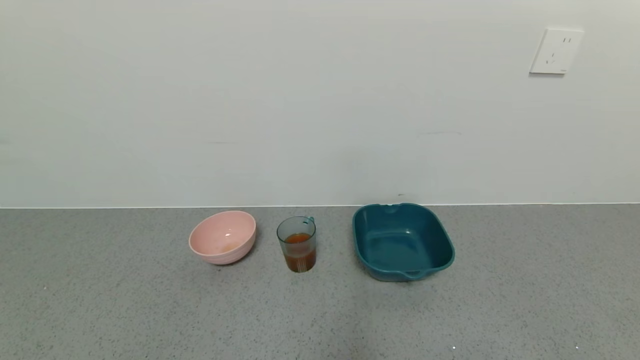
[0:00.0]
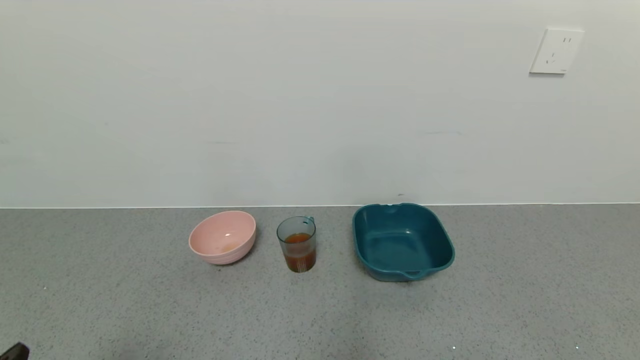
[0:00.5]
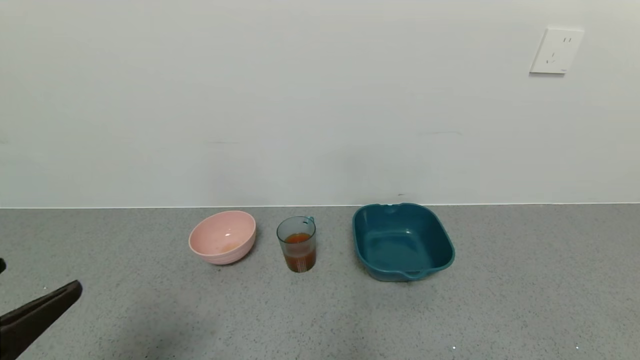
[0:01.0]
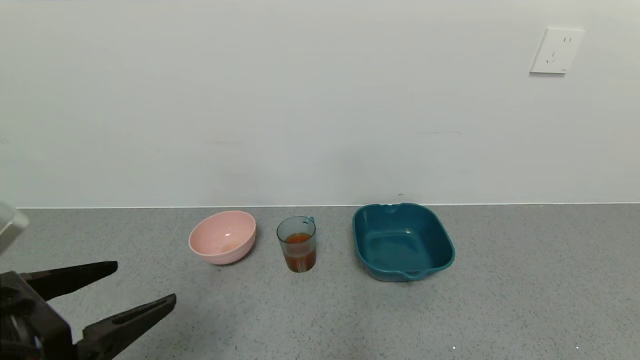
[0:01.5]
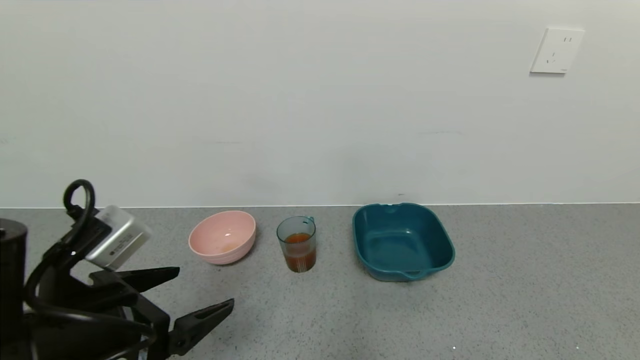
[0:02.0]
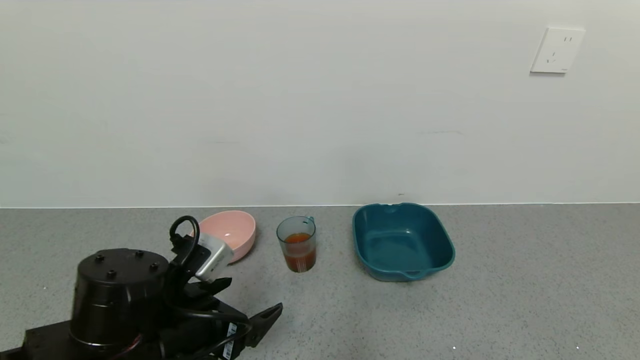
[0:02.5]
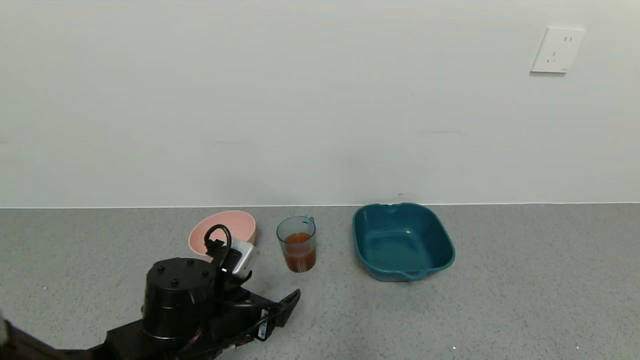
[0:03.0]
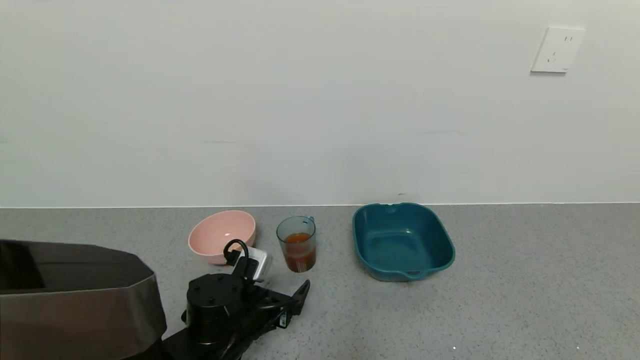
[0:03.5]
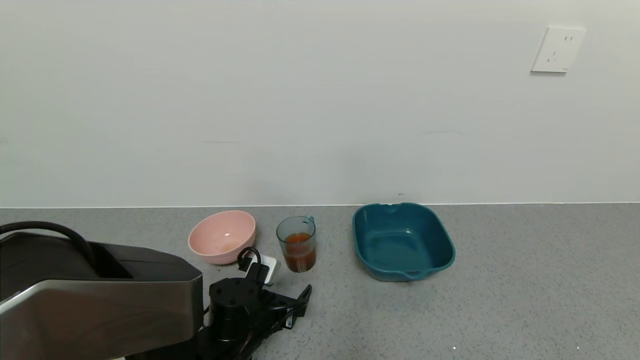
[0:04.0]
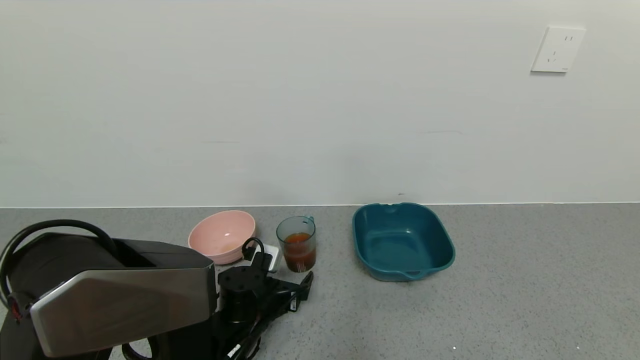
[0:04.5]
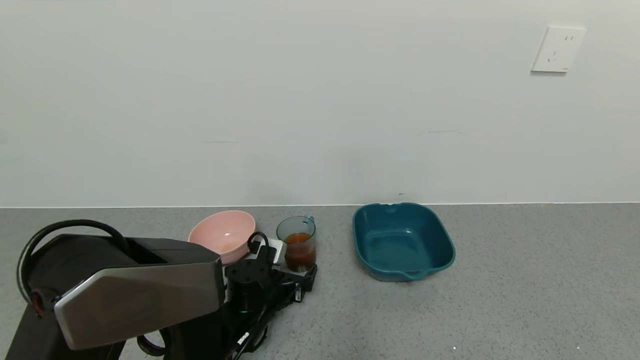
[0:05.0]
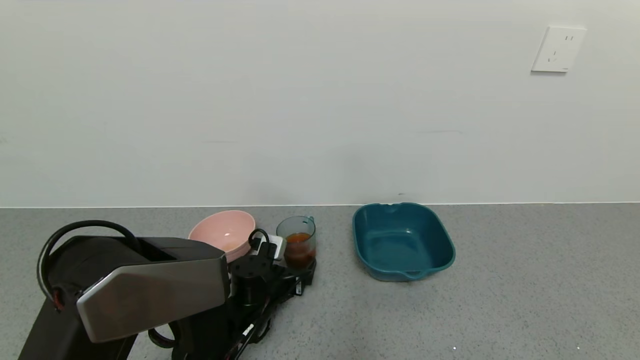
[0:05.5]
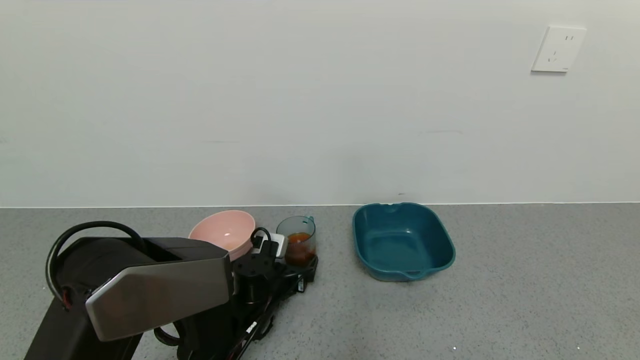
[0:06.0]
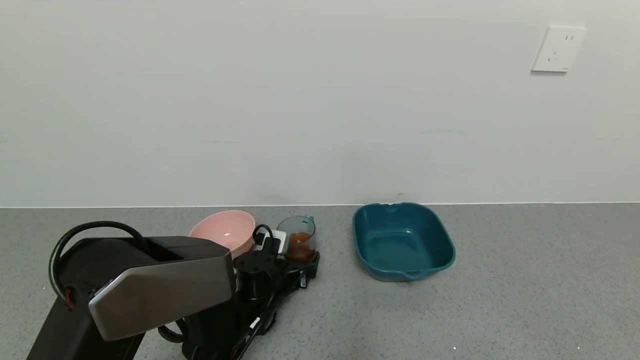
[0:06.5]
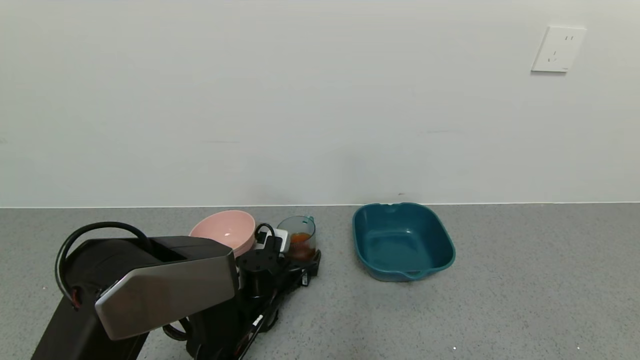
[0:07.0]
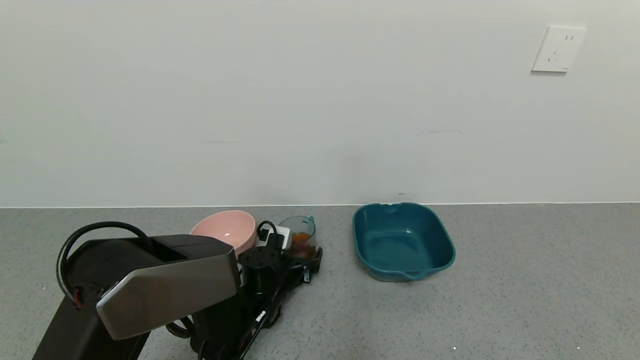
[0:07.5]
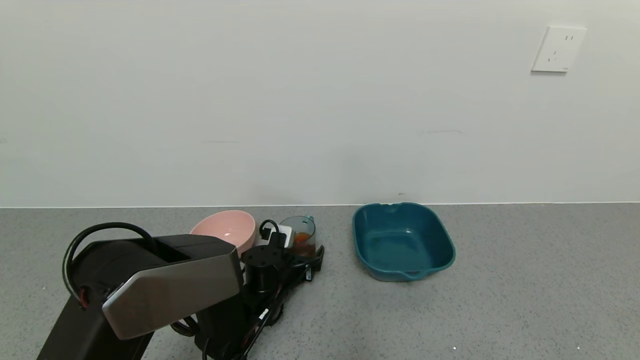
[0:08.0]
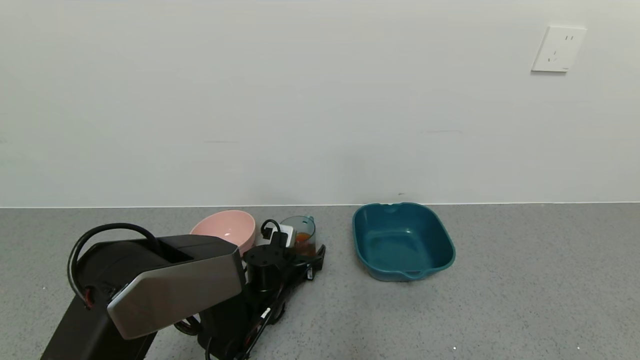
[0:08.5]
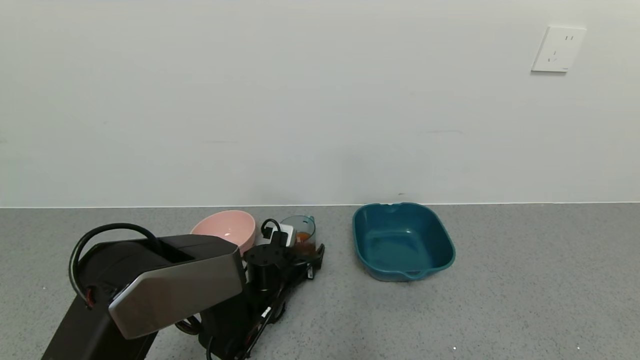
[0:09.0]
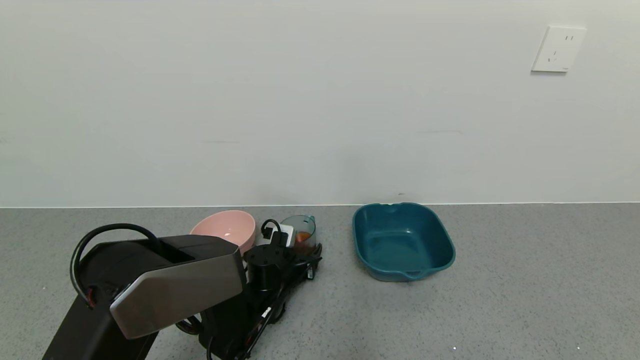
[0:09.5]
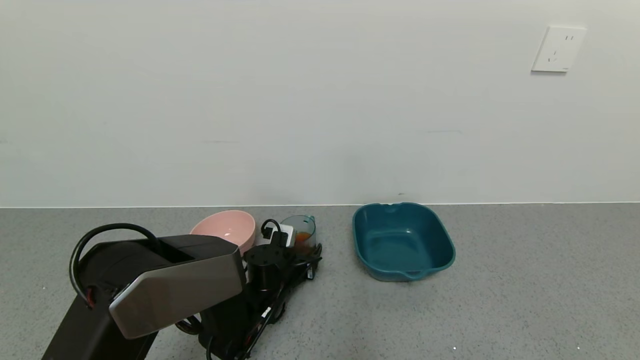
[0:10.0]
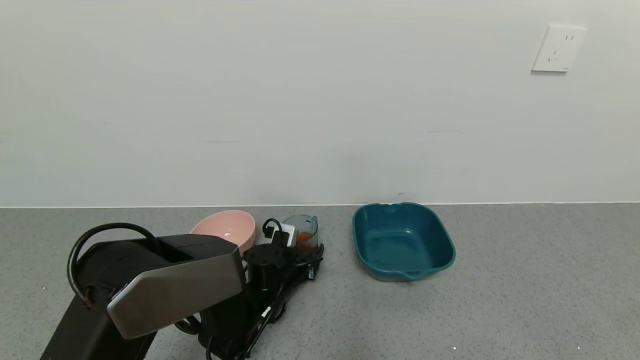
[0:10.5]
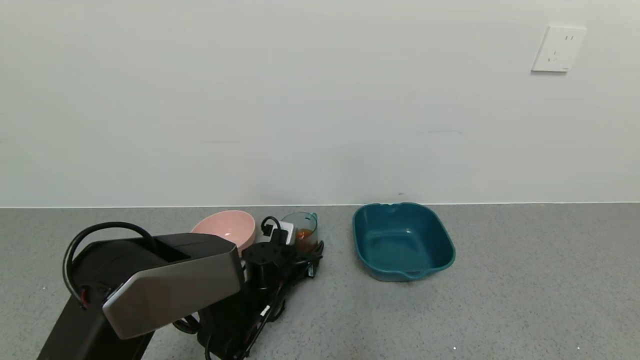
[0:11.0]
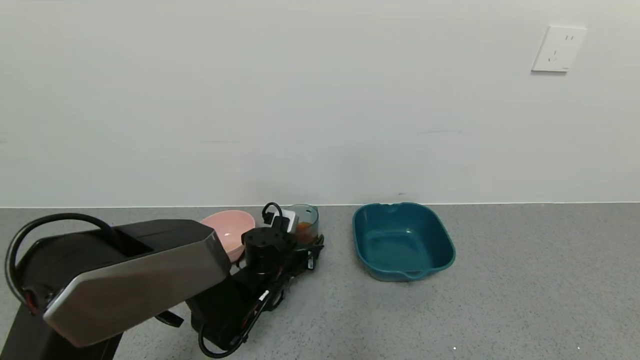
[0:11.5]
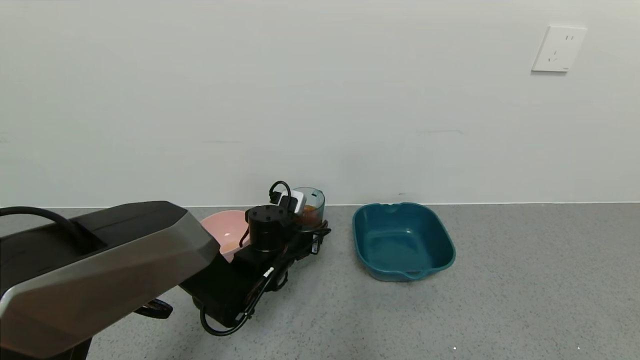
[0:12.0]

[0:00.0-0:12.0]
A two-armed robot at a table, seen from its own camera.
Task of the whole recording: use a gripper to pick up the cup and pour the liquid into a bowl or tray.
Step, 0:00.0 to 0:11.0: Grasp the glass of black tea with the left gripper.
0:00.0 to 0:02.0: The left gripper travels forward and to the right by approximately 20 cm.
0:02.0 to 0:04.0: The left gripper shifts roughly 25 cm downward, forward and to the right.
0:04.0 to 0:06.0: The left gripper travels forward by about 5 cm.
0:06.0 to 0:08.0: The grippers make only small movements.
0:08.0 to 0:10.0: The left gripper closes.
0:10.0 to 0:12.0: The left gripper heads upward, covering some 10 cm.

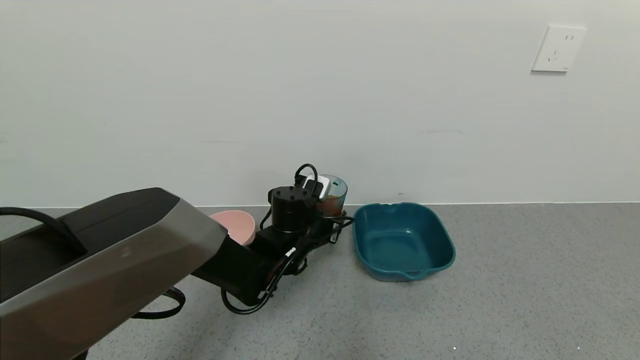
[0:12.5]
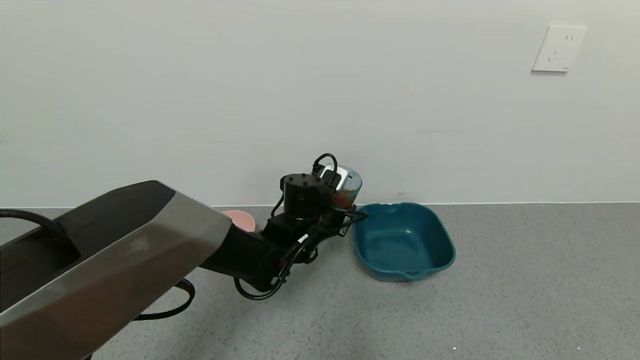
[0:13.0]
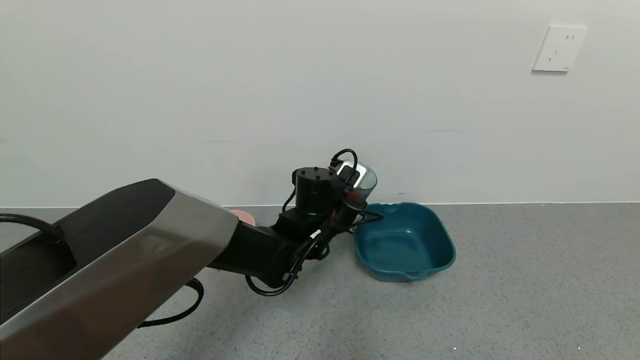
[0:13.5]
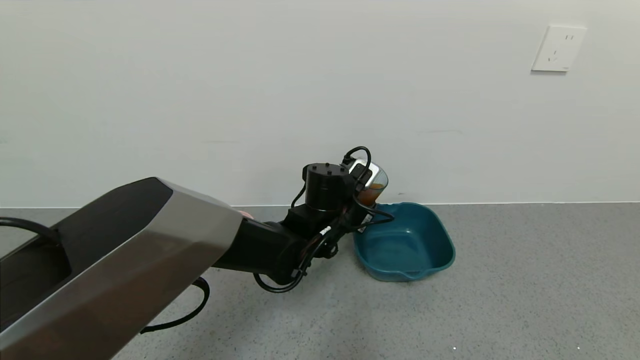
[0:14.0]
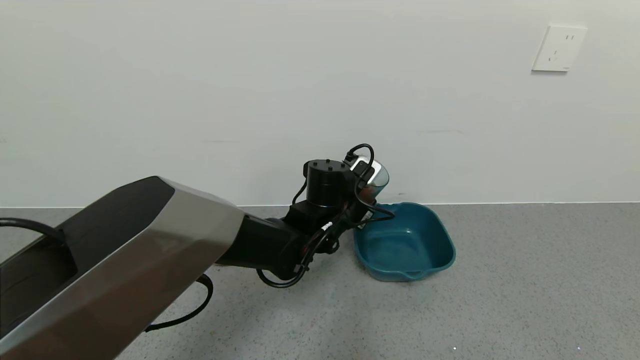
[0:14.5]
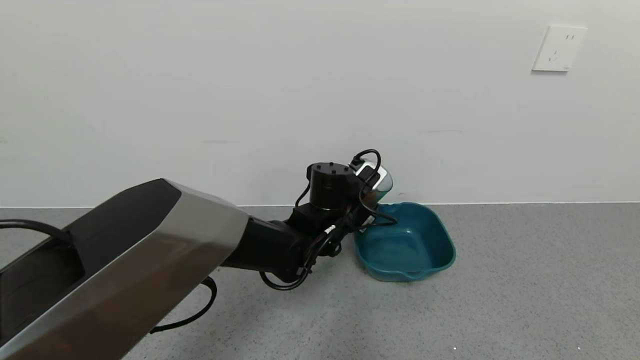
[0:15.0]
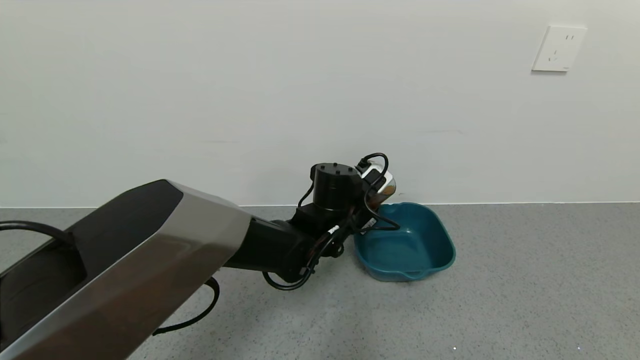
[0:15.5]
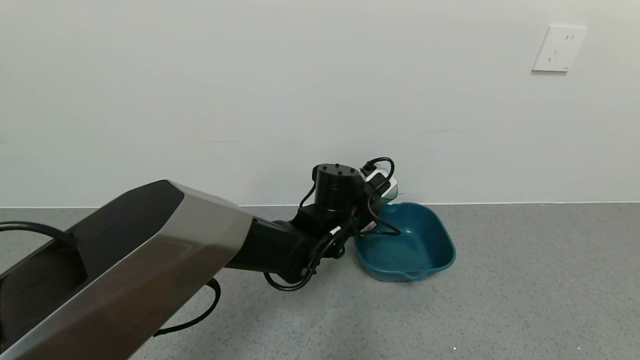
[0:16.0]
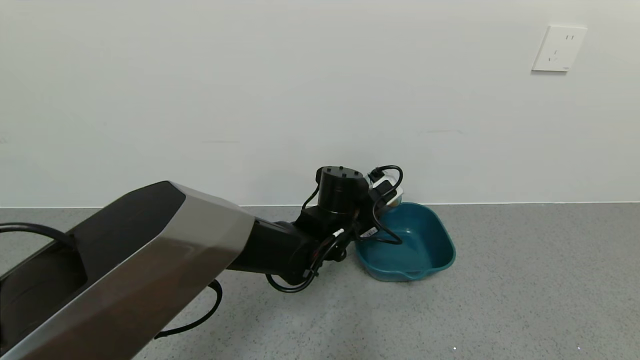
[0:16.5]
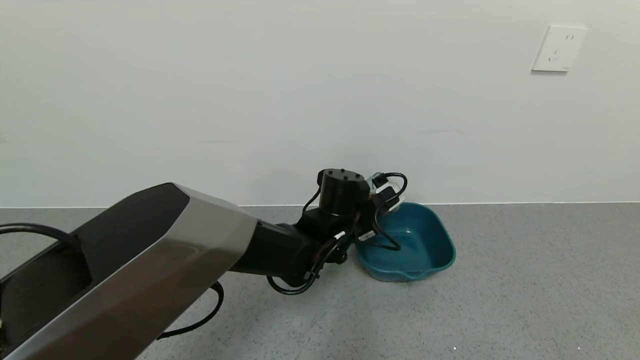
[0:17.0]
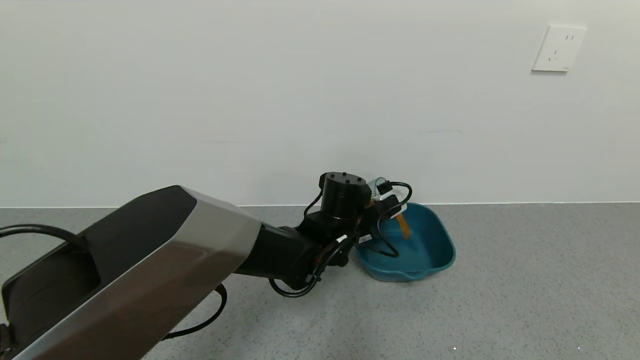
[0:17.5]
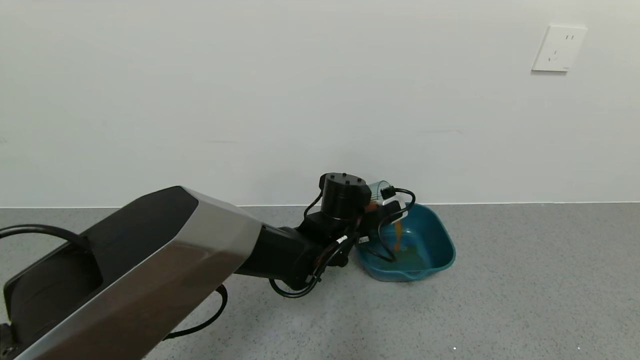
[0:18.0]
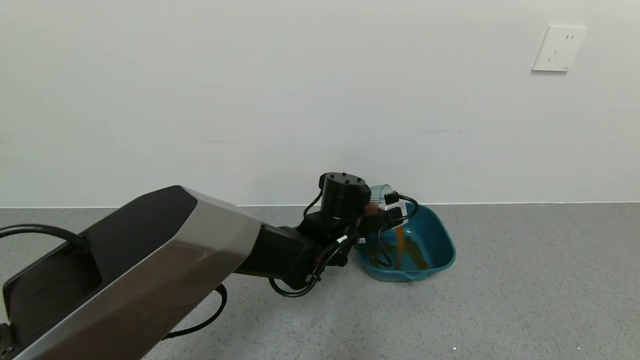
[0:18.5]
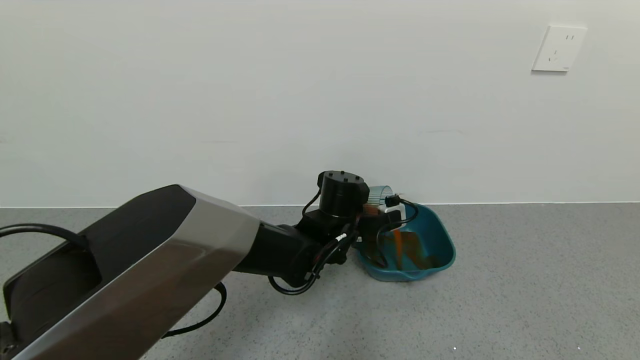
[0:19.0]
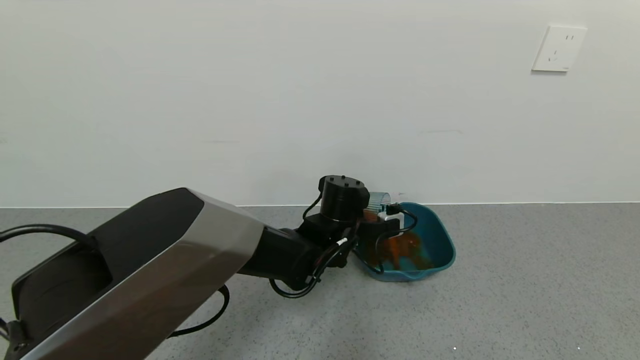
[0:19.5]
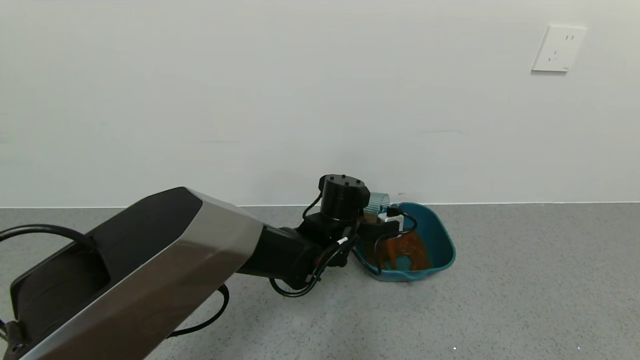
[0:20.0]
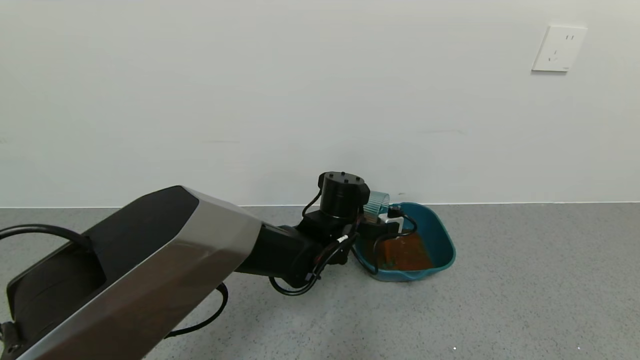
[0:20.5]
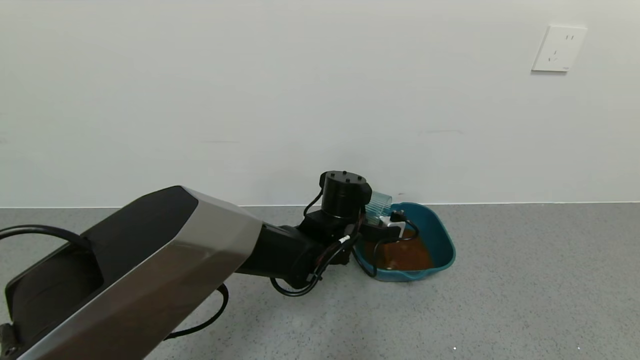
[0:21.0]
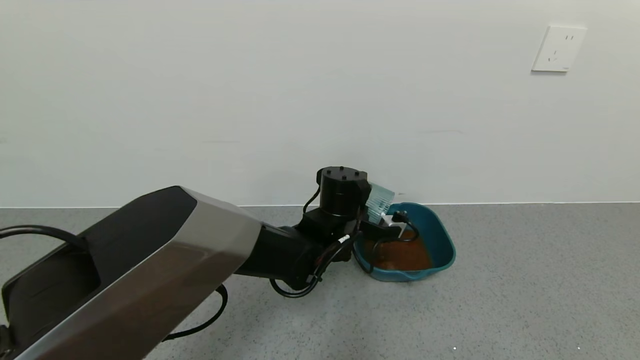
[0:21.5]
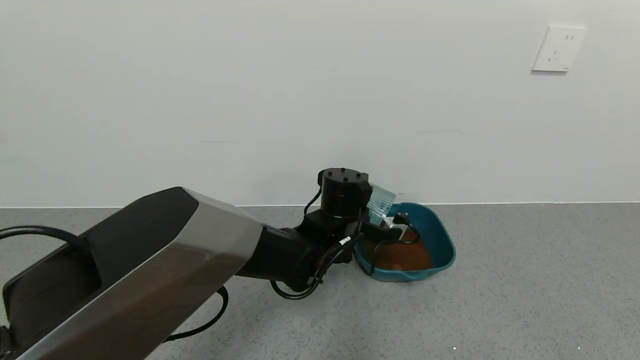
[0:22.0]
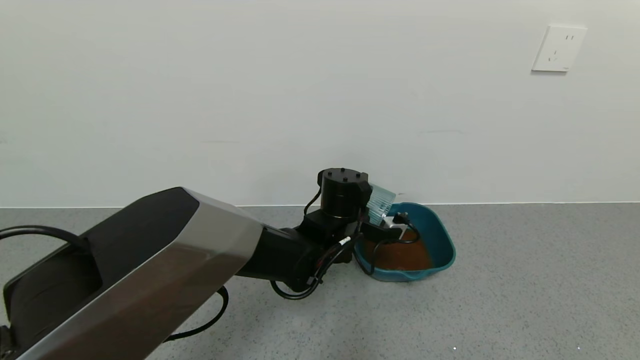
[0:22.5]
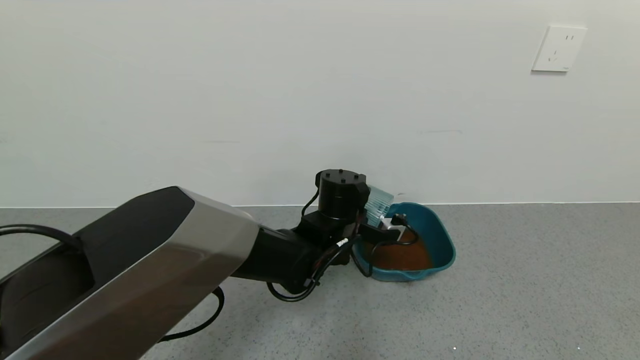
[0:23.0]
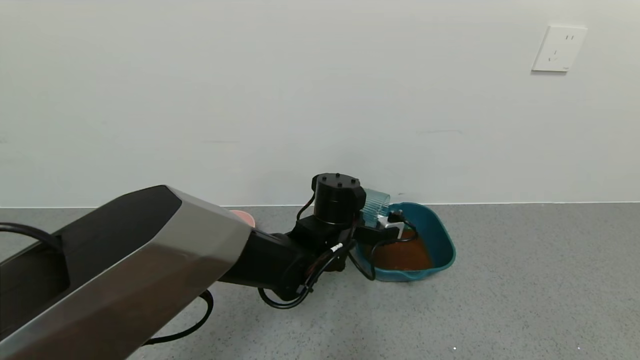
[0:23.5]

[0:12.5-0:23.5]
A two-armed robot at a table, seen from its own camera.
Task of the whole recording: use a gripper to pick up the cup and pour the liquid into a bowl or tray.
0:12.5 to 0:14.5: The left gripper shifts about 5 cm to the right.
0:14.5 to 0:16.0: The grippers stay close to where they were, moving slightly.
0:20.0 to 0:23.5: The grippers stay close to where they were, moving slightly.
